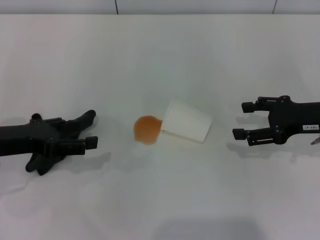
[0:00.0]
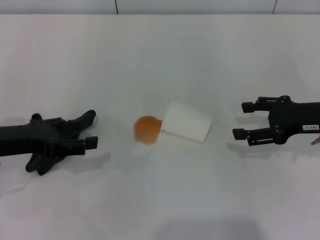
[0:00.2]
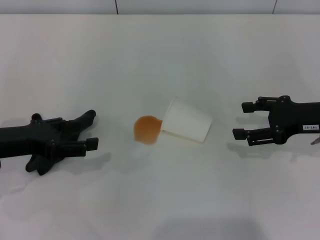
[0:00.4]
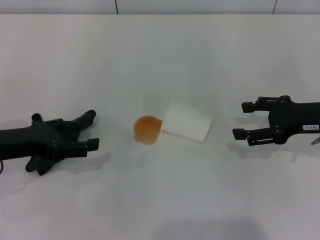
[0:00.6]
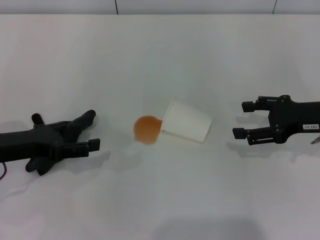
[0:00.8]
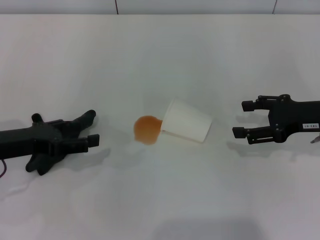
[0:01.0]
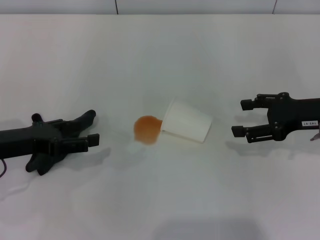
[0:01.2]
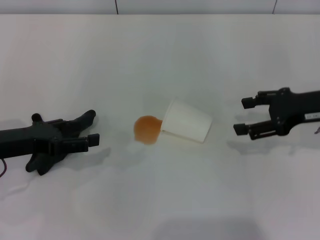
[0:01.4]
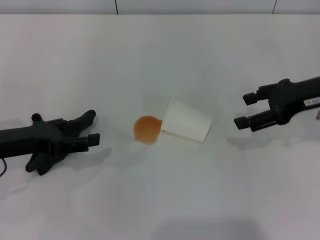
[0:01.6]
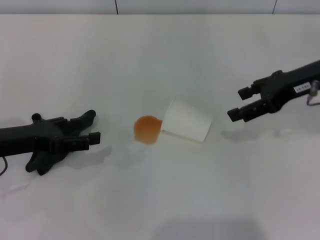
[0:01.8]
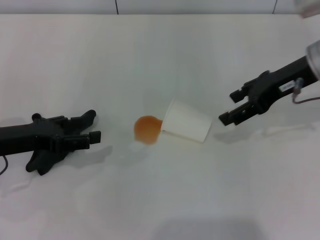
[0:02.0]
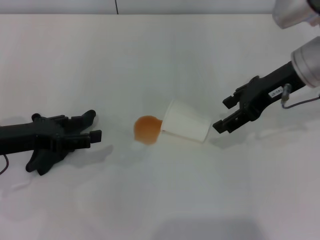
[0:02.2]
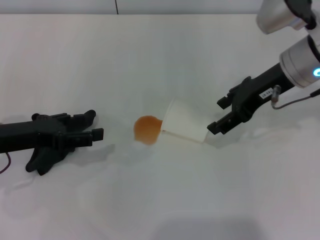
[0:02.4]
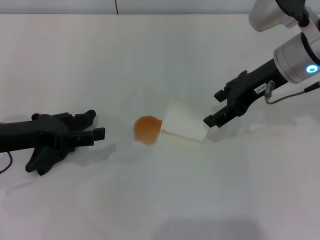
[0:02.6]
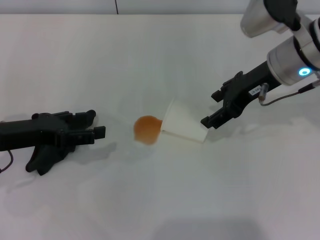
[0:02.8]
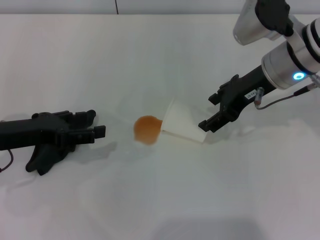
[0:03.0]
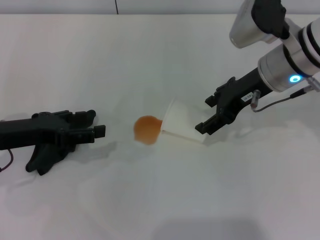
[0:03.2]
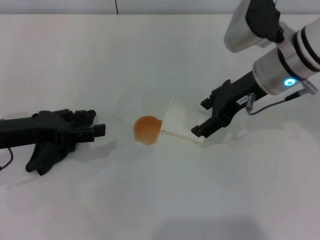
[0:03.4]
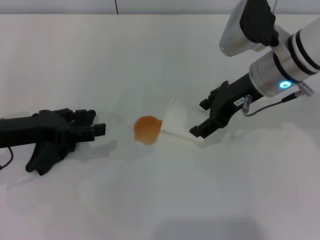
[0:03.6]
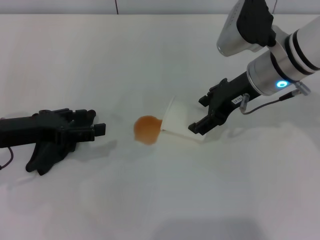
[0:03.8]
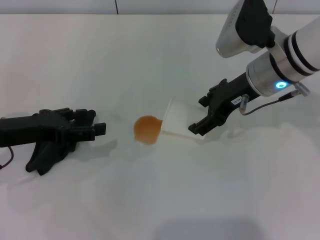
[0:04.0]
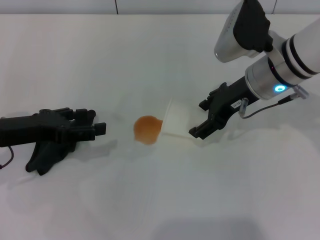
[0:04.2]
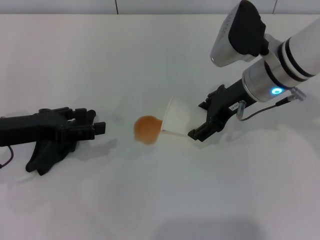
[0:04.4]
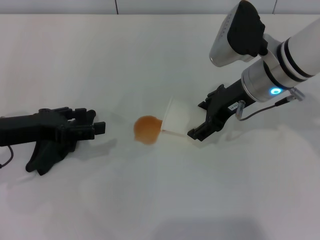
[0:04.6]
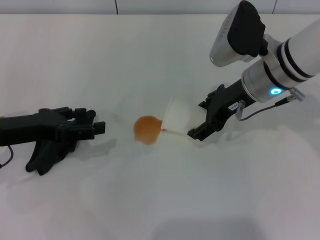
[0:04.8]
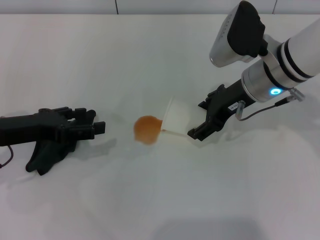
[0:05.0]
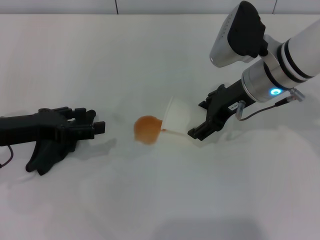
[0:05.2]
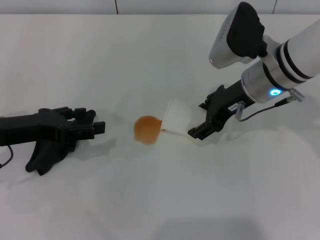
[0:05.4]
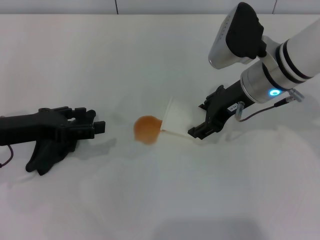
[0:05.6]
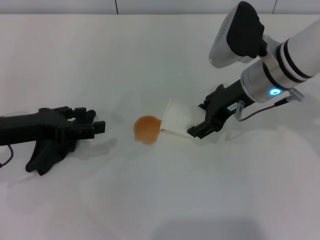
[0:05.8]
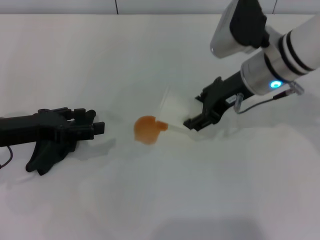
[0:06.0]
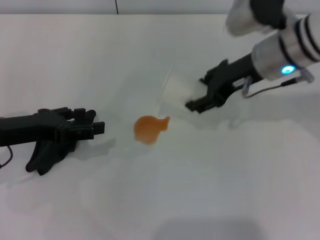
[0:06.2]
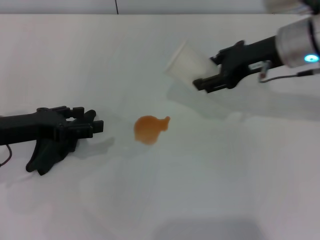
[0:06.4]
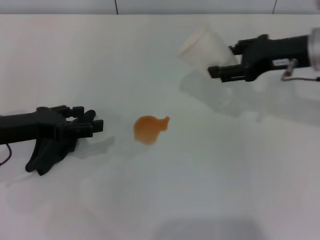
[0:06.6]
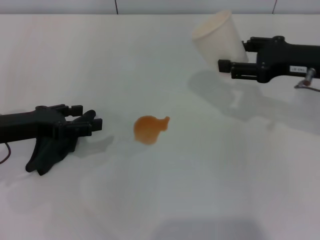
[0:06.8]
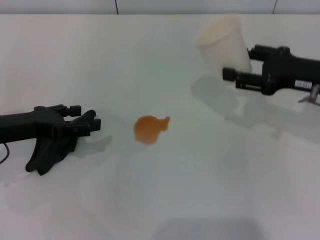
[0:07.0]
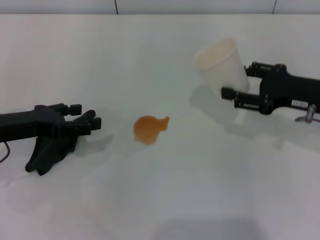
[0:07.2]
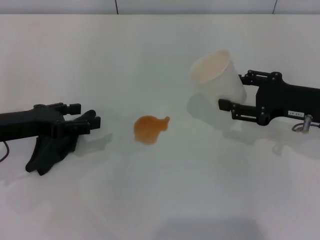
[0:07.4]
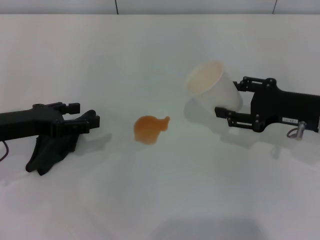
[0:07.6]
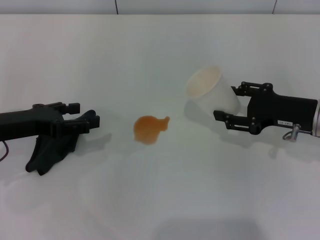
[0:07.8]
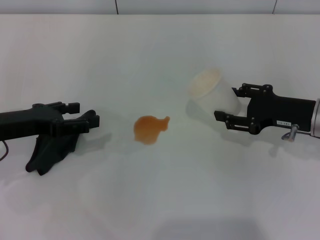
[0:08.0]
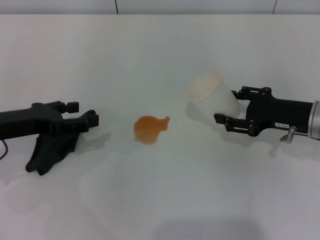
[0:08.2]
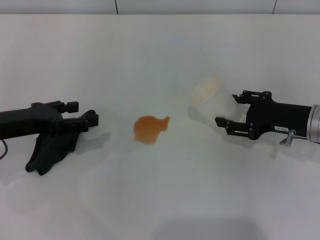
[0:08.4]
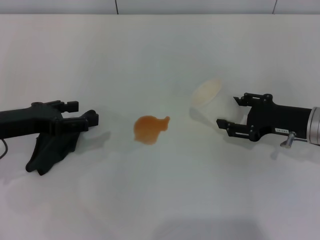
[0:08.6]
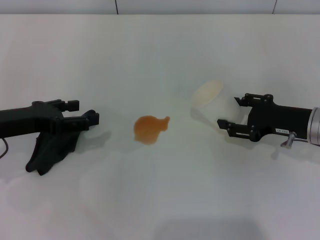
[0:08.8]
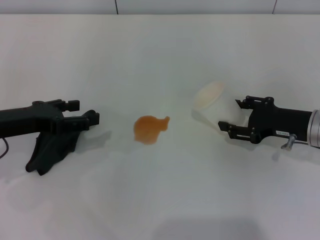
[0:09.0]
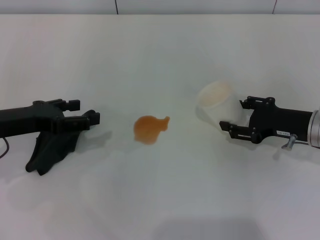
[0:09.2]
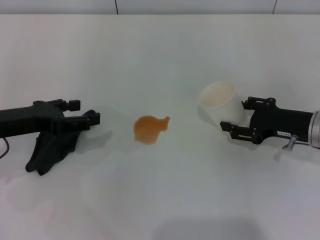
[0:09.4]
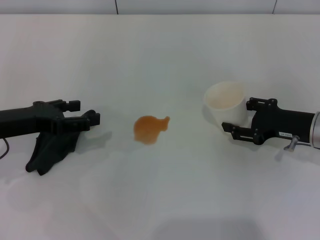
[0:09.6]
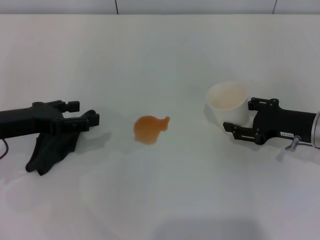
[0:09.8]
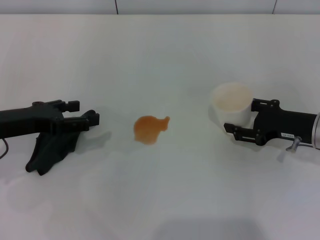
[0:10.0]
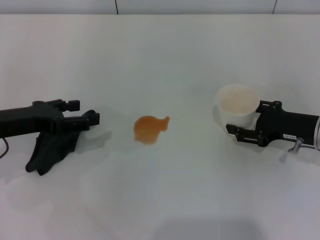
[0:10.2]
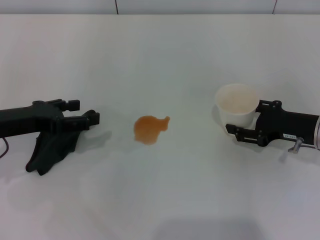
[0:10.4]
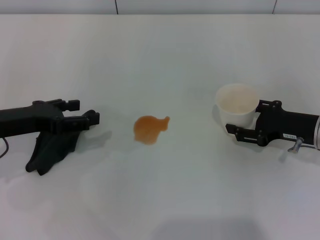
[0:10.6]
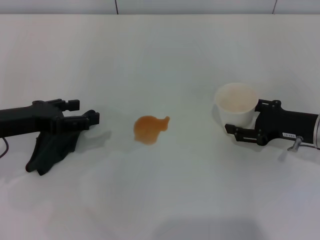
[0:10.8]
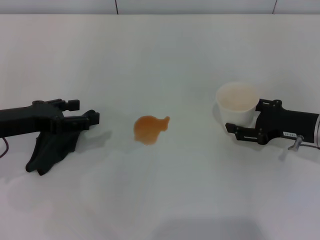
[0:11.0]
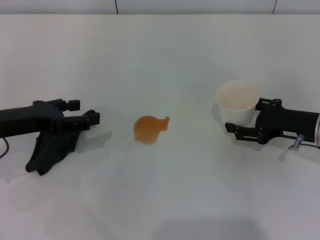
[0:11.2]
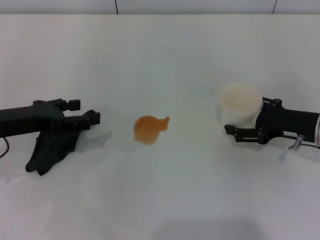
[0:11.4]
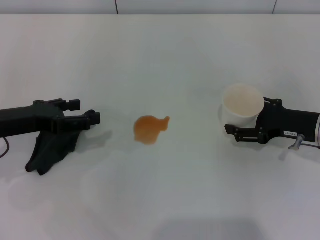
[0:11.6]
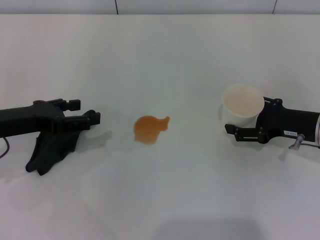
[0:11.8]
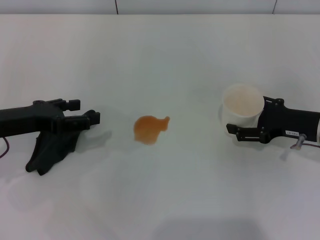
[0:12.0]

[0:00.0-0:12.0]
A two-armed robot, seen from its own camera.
Step, 0:00.0 to 0:05.6: Grasp the paper cup with the left gripper.
0:00.0 to 0:01.6: The right gripper heads upward, covering roughly 5 cm.
0:01.6 to 0:03.0: The right gripper moves to the left, some 10 cm.
0:03.0 to 0:04.4: The grippers make only small movements.
0:04.4 to 0:06.0: The right gripper closes up.
0:06.0 to 0:07.6: The right gripper travels to the right, downward and backward by roughly 15 cm.
0:07.6 to 0:09.0: The grippers make only small movements.
0:09.0 to 0:10.4: Neither gripper changes place.
0:10.4 to 0:12.0: The right gripper opens up.

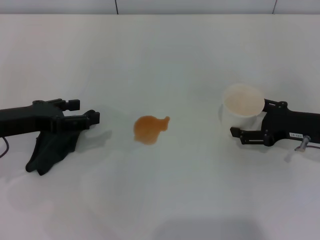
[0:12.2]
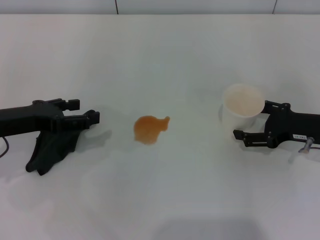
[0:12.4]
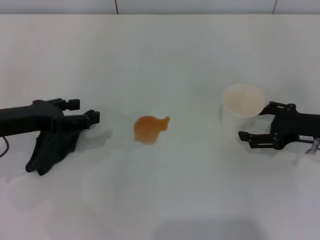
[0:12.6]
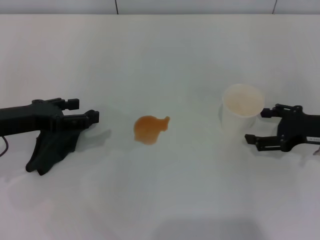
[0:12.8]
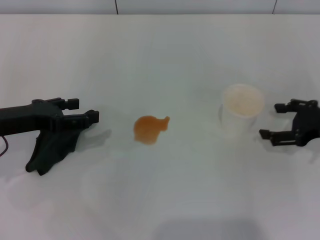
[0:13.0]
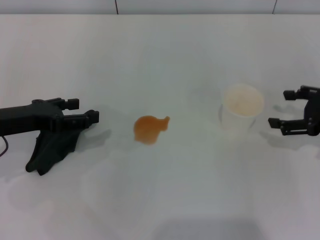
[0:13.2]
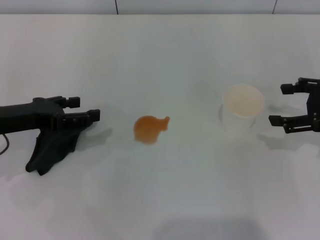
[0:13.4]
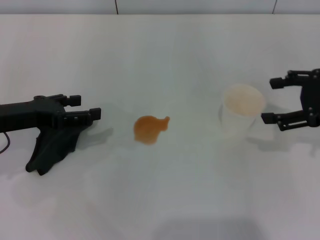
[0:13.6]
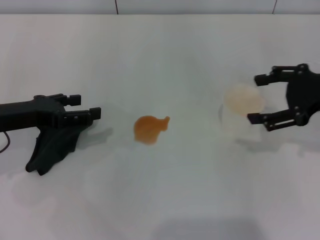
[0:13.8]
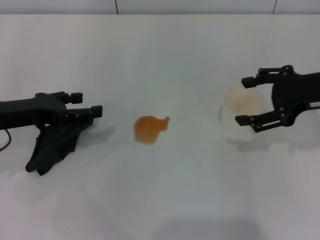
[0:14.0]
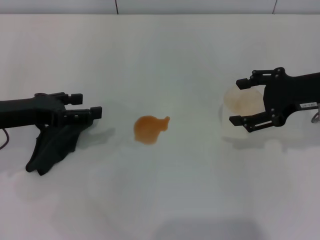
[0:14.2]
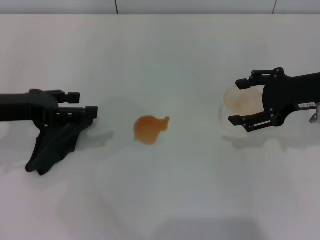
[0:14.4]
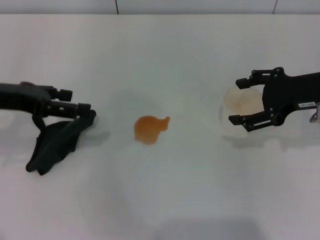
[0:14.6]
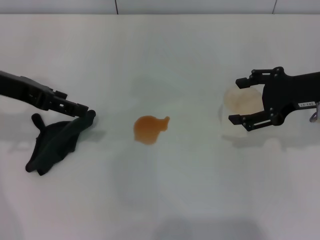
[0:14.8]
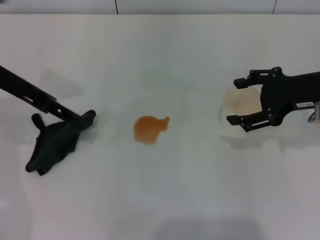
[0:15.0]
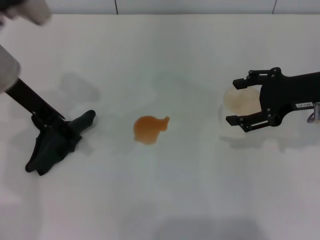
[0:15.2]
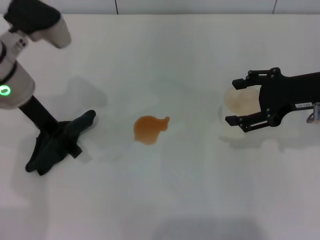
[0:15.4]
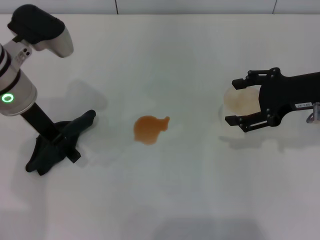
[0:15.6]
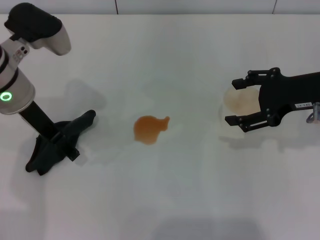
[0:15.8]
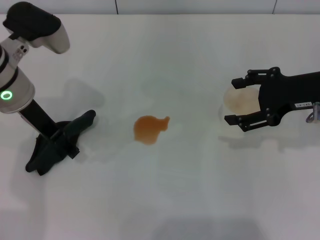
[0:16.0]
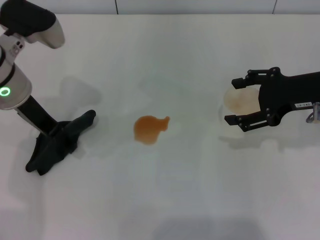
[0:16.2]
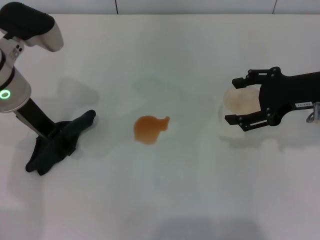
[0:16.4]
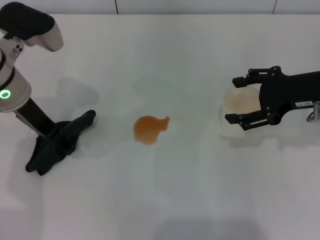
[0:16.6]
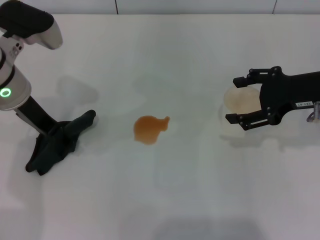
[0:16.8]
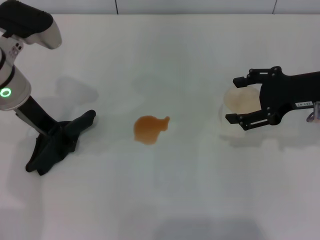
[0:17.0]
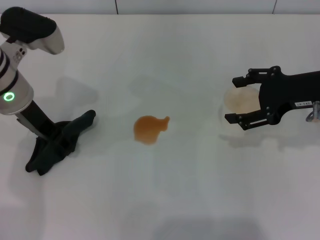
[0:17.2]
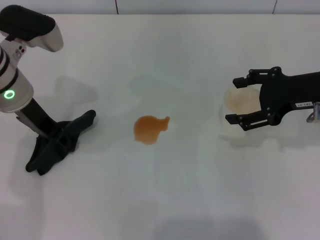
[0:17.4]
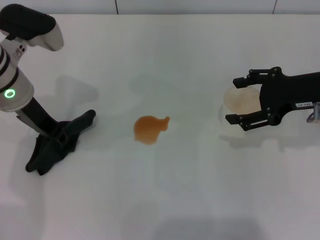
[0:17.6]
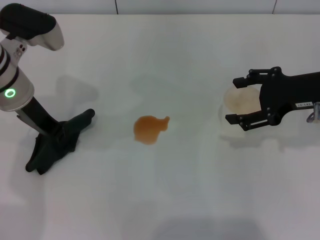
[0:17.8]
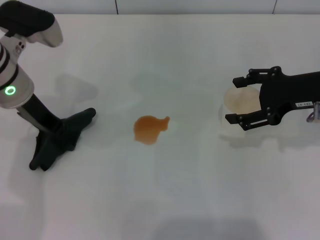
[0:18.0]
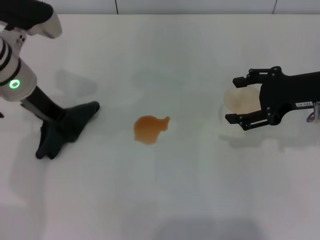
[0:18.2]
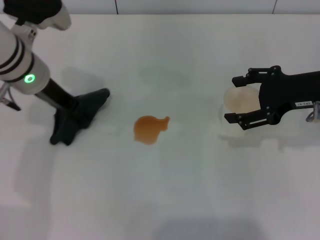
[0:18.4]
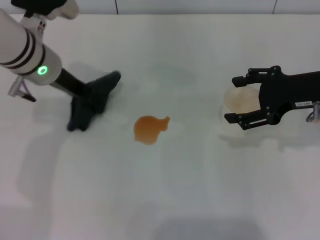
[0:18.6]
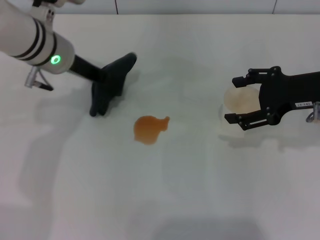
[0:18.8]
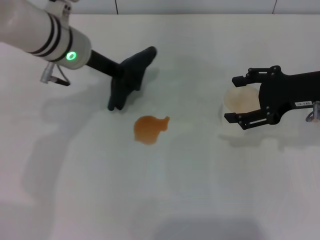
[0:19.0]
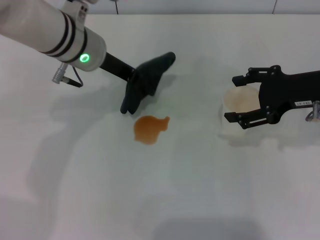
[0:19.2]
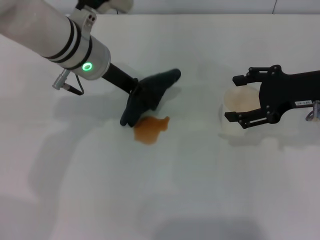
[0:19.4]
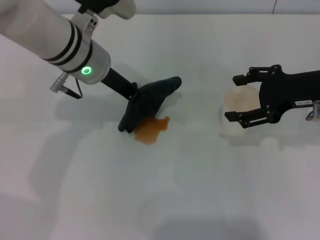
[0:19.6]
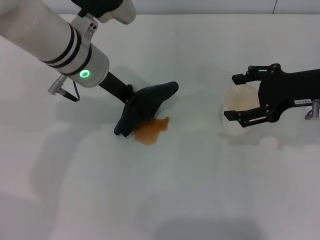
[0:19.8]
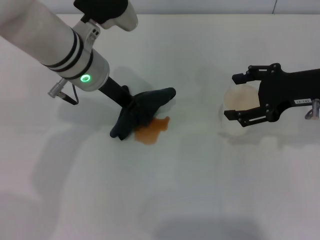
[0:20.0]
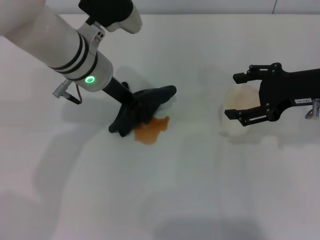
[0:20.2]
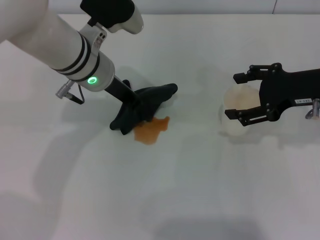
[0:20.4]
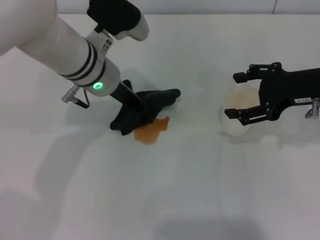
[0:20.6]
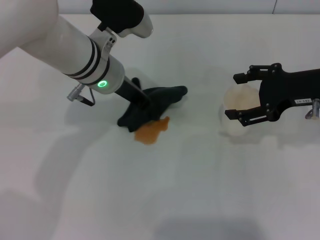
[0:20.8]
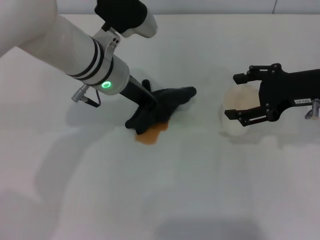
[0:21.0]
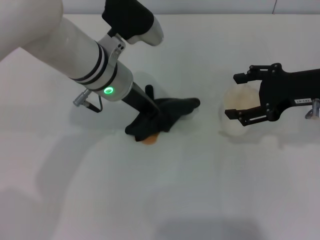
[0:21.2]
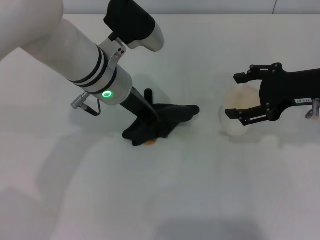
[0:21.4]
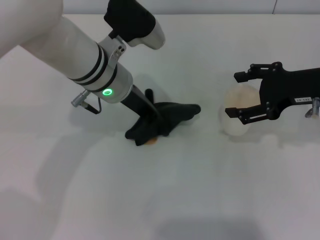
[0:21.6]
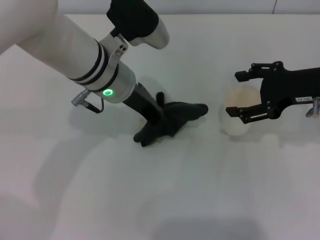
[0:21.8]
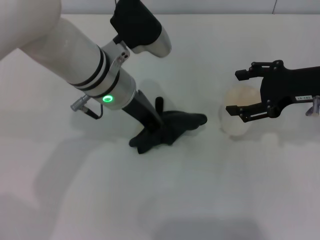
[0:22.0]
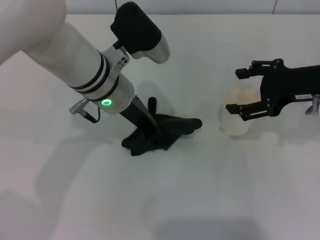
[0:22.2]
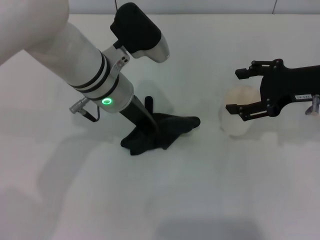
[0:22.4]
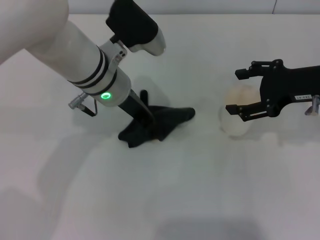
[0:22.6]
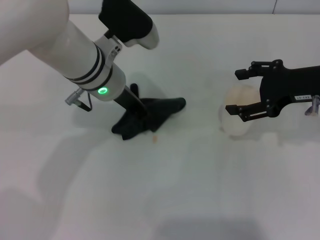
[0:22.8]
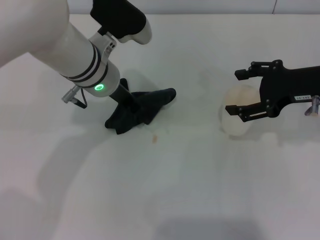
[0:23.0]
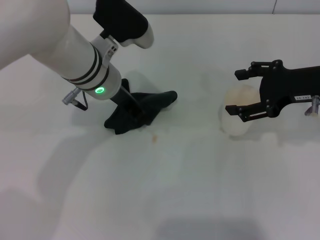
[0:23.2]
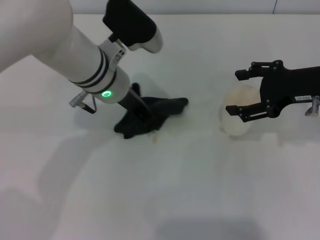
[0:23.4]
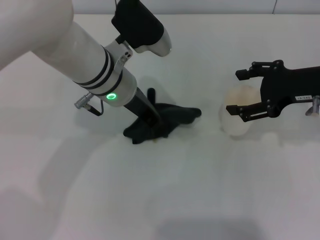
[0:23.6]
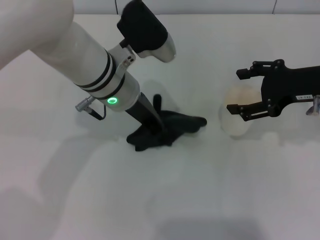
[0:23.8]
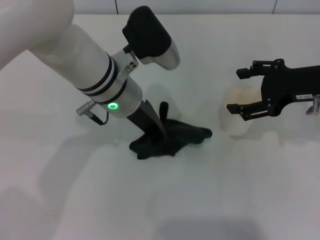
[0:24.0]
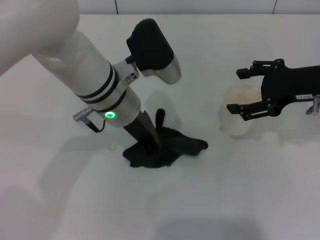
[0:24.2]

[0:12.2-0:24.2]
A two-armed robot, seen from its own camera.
Step, 0:12.8 to 0:17.6: Grasp the rag with the left gripper.
Step, 0:17.8 to 0:24.2: Wipe the stains off the table with the left gripper.
0:12.2 to 0:13.8: The right gripper heads upward, covering some 10 cm.
0:13.8 to 0:15.2: The left gripper is displaced upward, to the right and forward by approximately 15 cm.
0:15.2 to 0:16.6: The grippers move only a little.
0:16.6 to 0:18.2: The left gripper closes.
0:18.2 to 0:19.8: The left gripper heads to the right, covering roughly 10 cm.
0:19.8 to 0:22.6: The grippers move only a little.
0:22.6 to 0:24.2: The grippers stay close to where they were, moving slightly.
